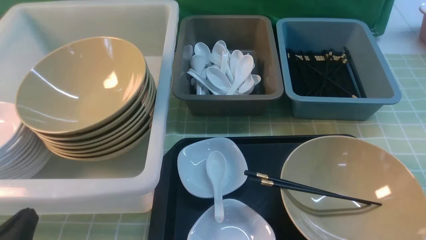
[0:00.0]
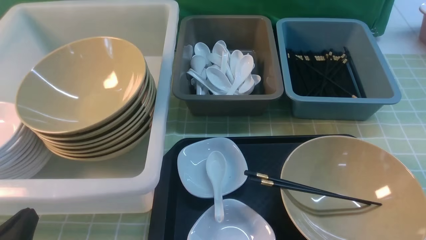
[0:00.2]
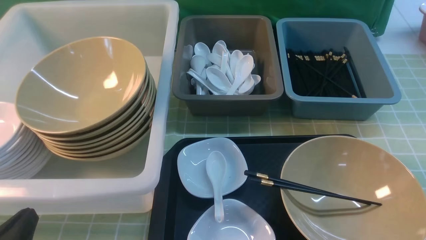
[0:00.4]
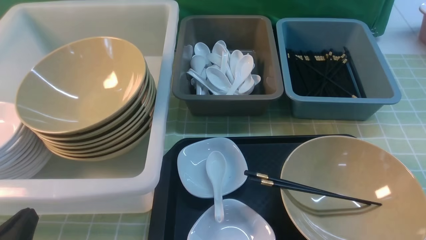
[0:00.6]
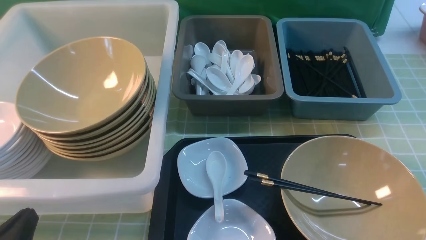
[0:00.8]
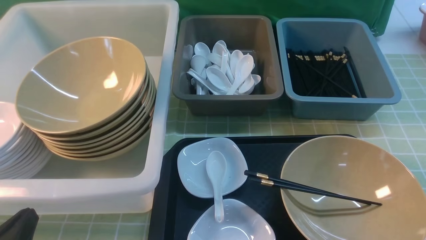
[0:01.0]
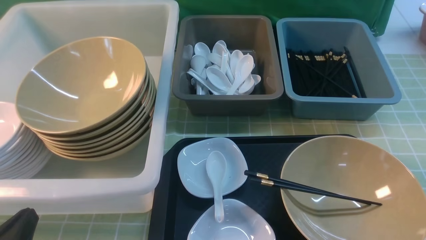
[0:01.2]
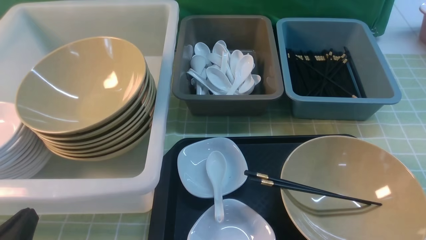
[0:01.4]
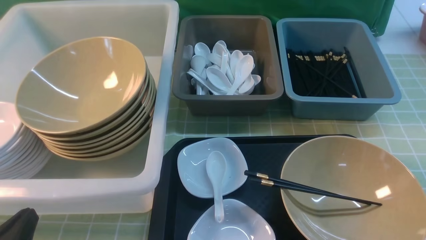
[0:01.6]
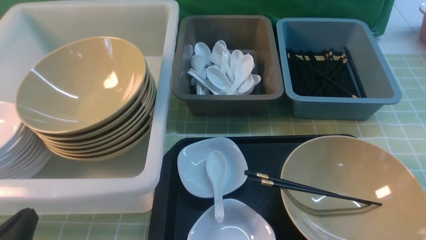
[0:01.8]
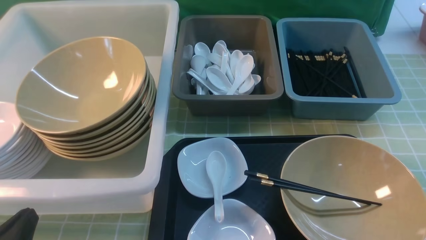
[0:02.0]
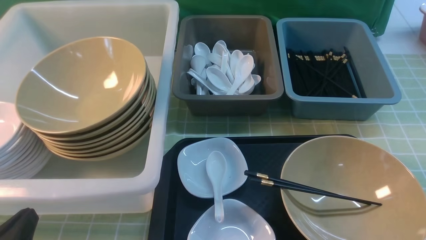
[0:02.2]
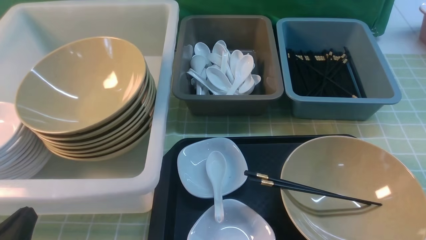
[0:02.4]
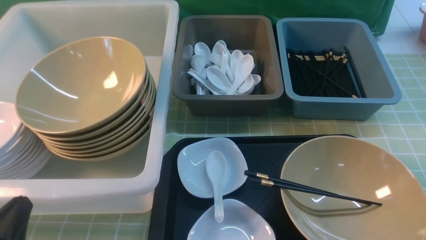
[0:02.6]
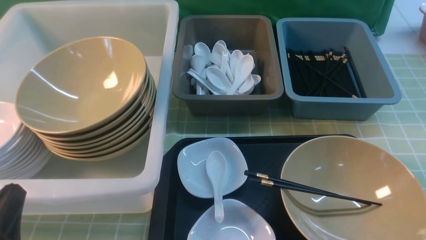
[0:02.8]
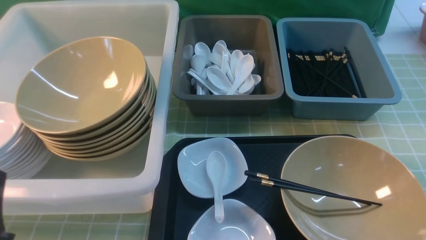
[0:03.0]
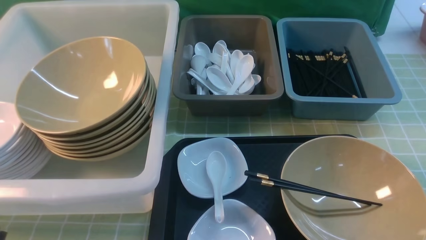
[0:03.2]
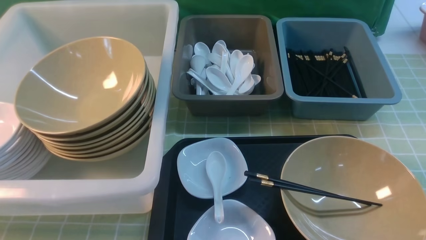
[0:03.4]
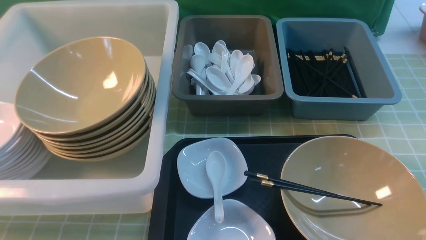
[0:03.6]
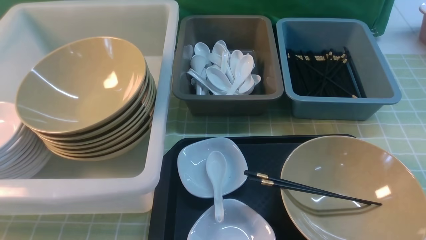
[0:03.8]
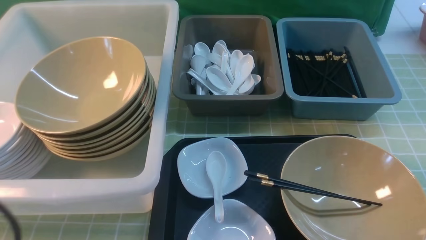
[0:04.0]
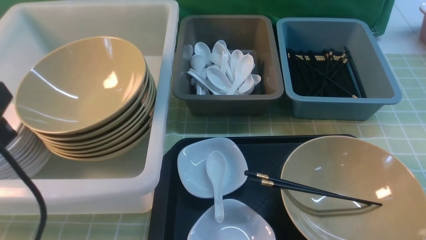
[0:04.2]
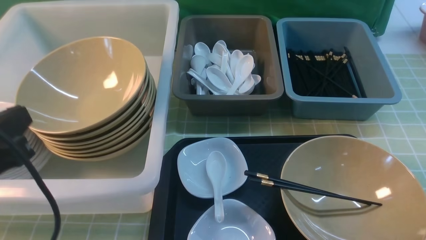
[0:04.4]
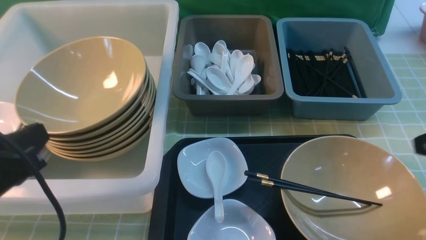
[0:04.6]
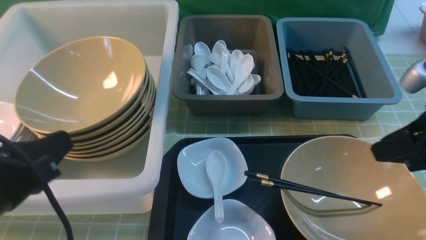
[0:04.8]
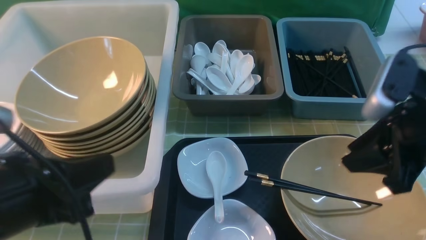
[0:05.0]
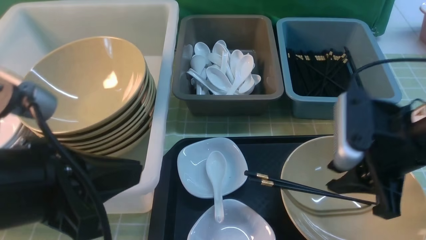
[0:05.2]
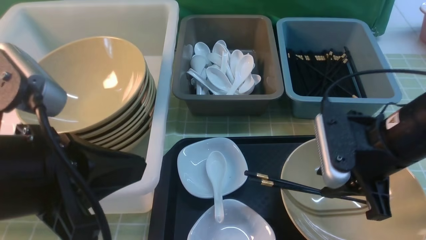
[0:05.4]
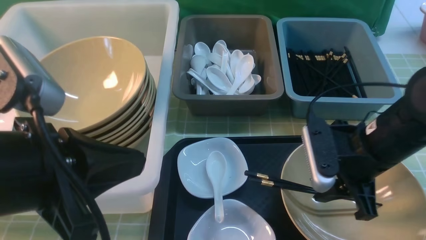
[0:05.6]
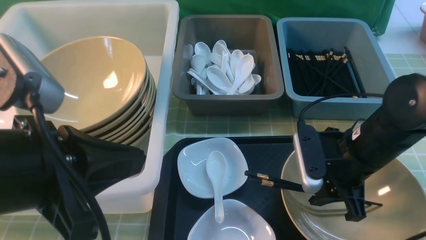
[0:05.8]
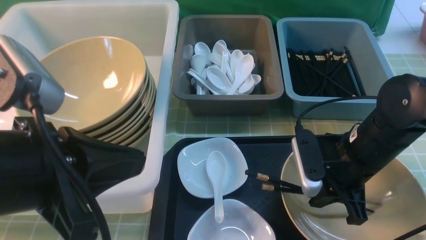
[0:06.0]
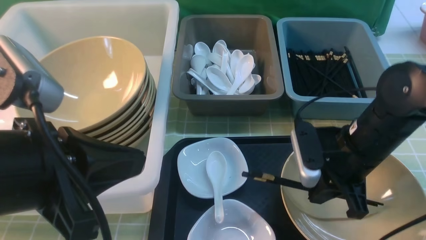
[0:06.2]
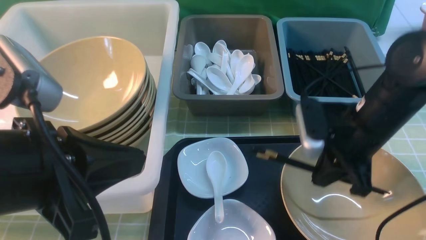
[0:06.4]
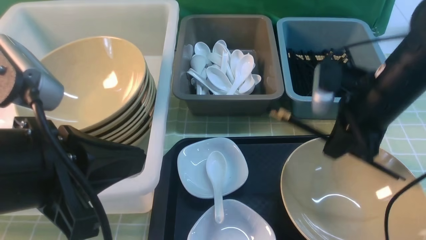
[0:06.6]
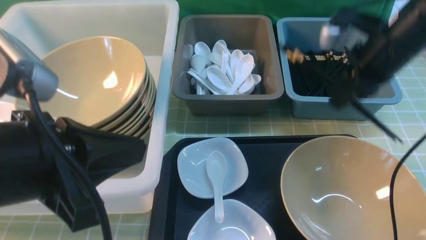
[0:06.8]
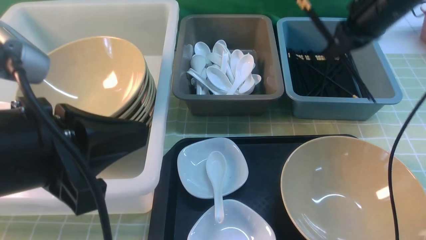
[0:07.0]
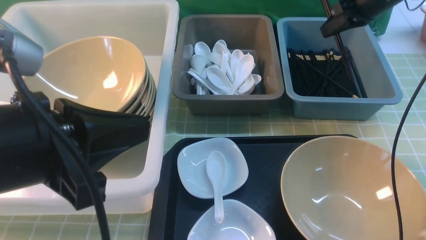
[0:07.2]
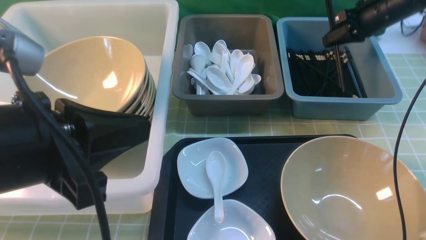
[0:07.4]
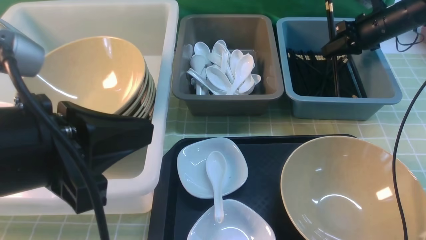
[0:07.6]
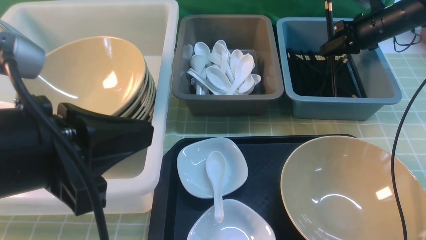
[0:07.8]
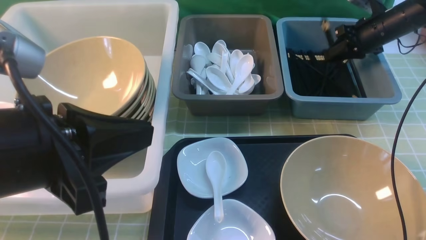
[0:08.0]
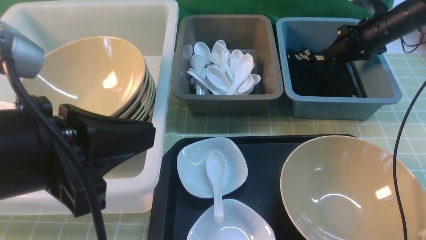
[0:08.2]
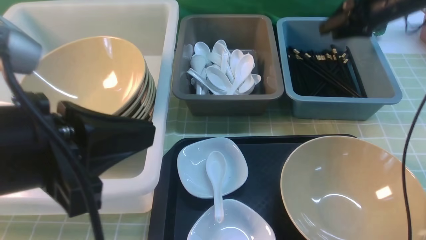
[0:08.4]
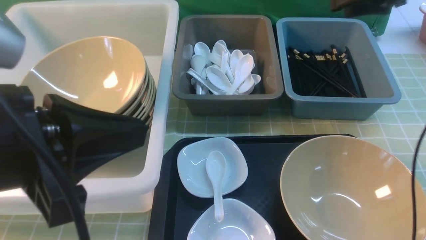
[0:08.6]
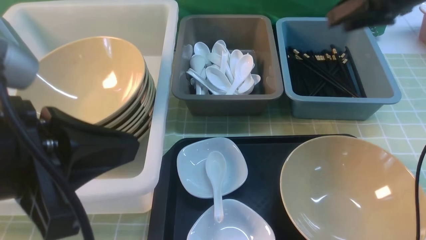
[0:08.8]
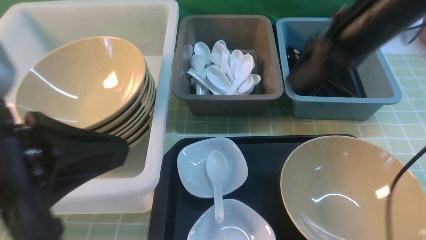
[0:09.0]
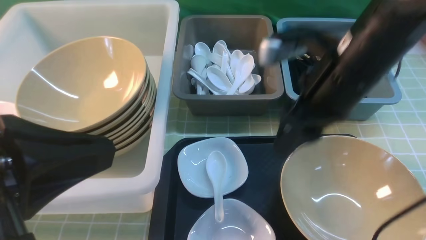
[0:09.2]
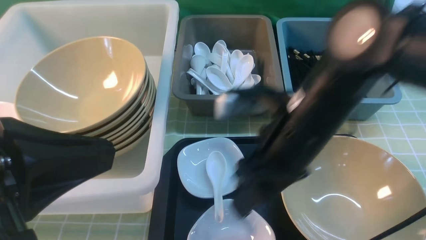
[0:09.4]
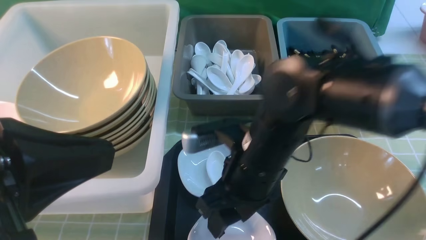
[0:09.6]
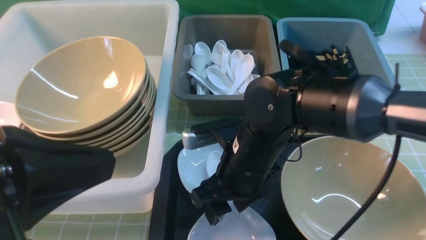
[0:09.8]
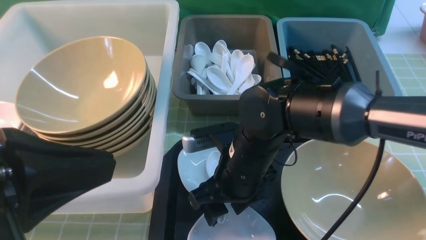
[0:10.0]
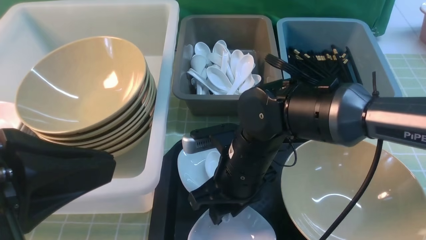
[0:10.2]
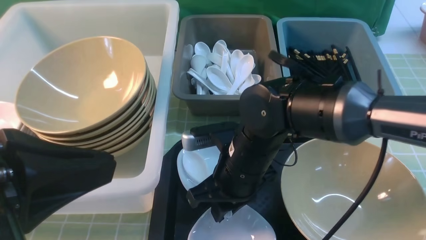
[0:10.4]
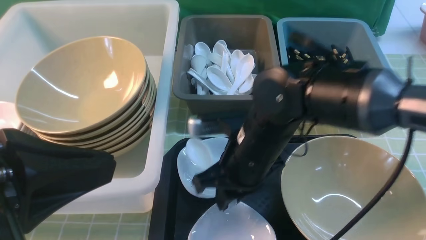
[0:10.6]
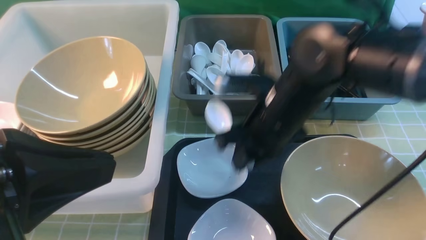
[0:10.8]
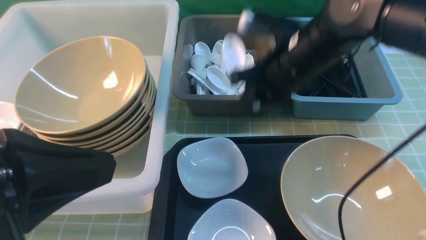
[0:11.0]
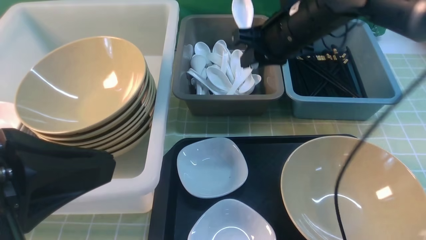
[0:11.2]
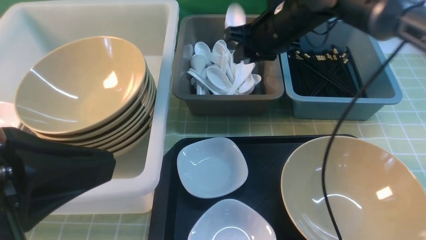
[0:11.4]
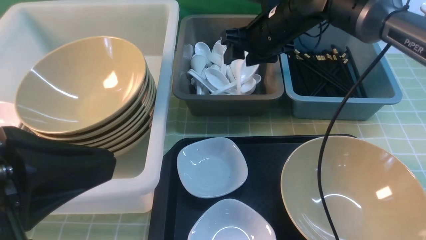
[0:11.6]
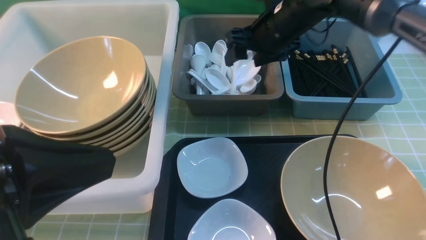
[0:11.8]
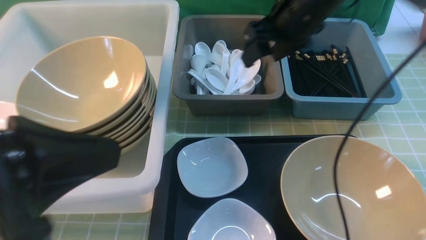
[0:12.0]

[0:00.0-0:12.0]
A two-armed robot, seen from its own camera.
Task of the whole recording: on green table put chopsticks spoon bowls plates into blue grey white boxes.
Step, 0:00.0 to 0:06.4: use the right arm to grab the chopsticks.
Step, 0:06.6 to 0:08.4: use the right arm to put the chopsticks into the small storage box on the right.
Step, 0:08.6 to 0:10.8: use the right arm to grab the soup spoon in the middle.
0:00.0 to 0:01.6: The two grippers keep their place.
0:03.0 to 0:04.4: The left gripper shifts roughly 10 cm upward and forward.
0:04.4 to 0:06.0: The right gripper travels to the left, downward and forward by about 20 cm, while the left gripper heads to the right, covering some 5 cm.
0:06.0 to 0:07.6: The right gripper shifts approximately 30 cm forward and to the right.
0:07.6 to 0:09.0: The right gripper is displaced backward, to the left and upward by roughly 25 cm, and opens.
0:09.0 to 0:10.4: The right gripper heads to the left, downward and backward, covering roughly 20 cm, and closes its fingers.
0:10.4 to 0:12.0: The right gripper travels upward, forward and to the right by approximately 20 cm, and opens up.

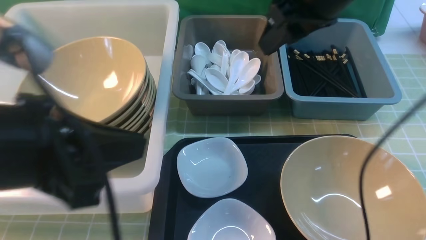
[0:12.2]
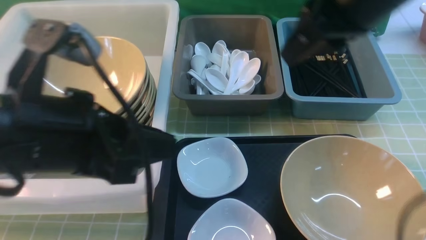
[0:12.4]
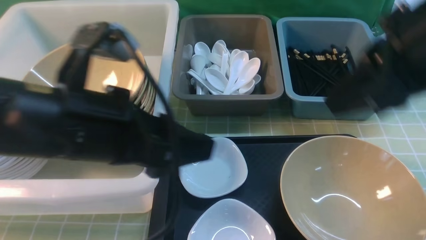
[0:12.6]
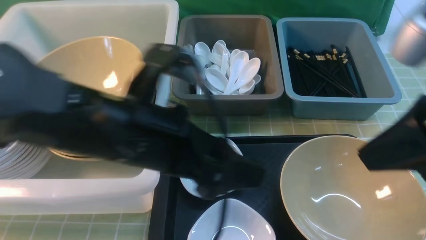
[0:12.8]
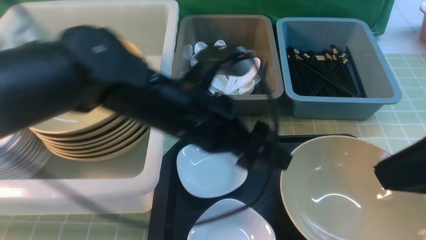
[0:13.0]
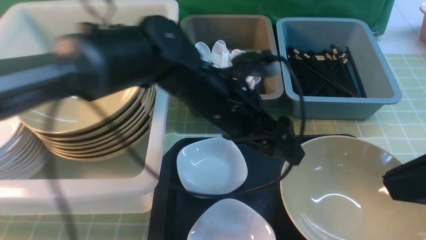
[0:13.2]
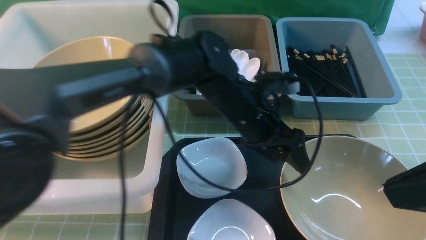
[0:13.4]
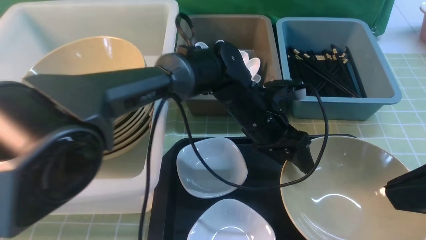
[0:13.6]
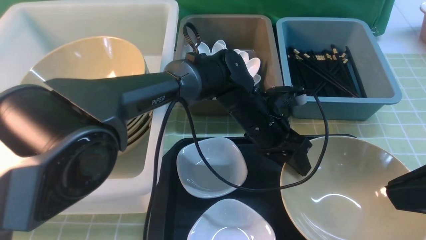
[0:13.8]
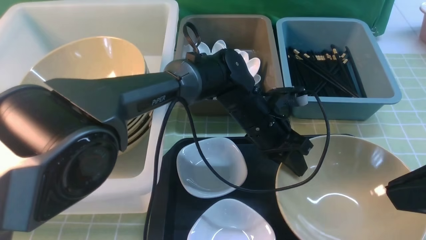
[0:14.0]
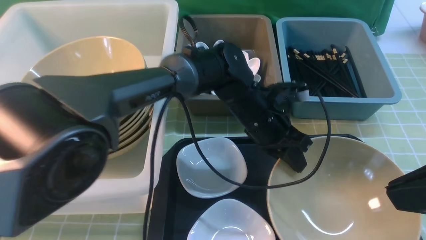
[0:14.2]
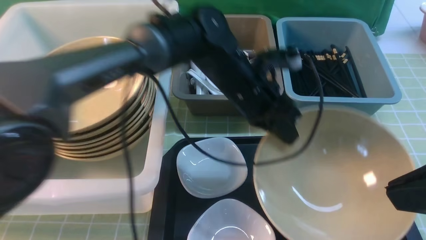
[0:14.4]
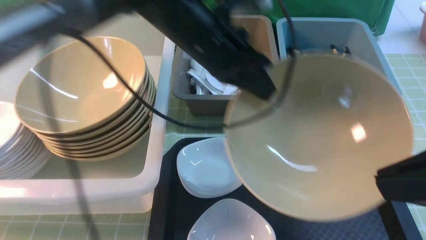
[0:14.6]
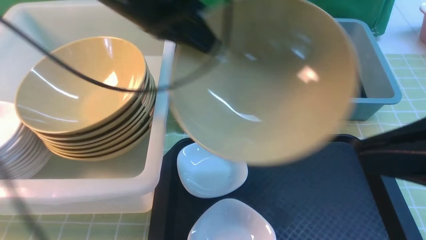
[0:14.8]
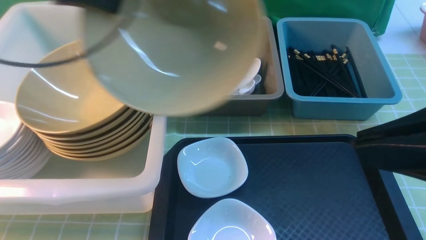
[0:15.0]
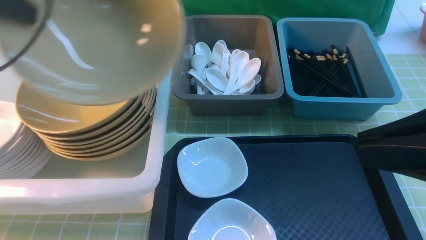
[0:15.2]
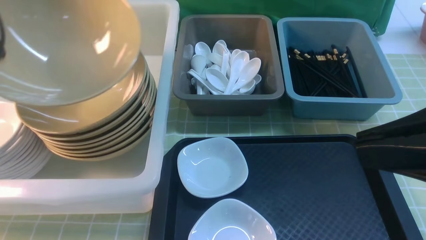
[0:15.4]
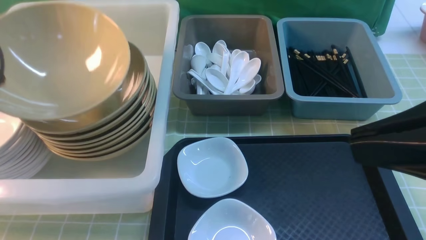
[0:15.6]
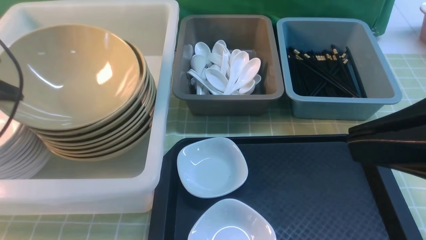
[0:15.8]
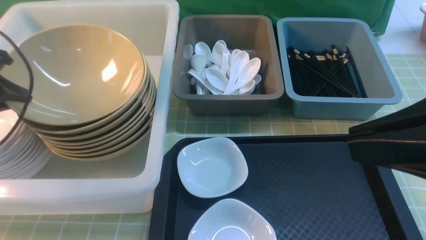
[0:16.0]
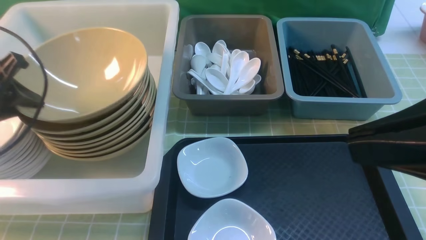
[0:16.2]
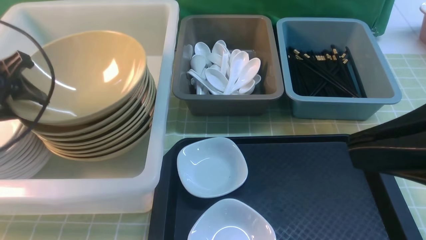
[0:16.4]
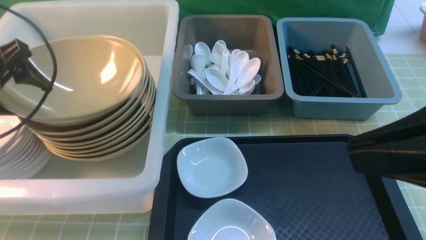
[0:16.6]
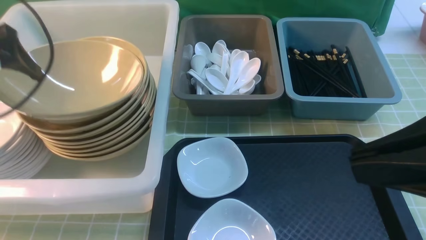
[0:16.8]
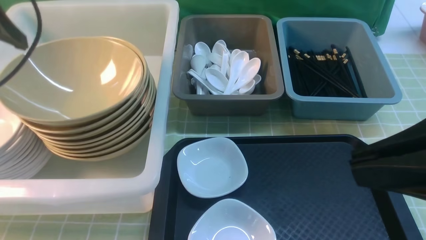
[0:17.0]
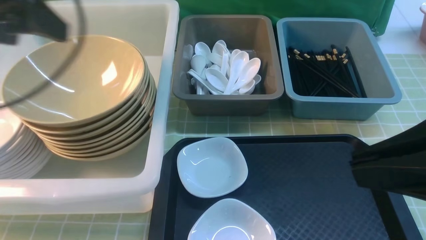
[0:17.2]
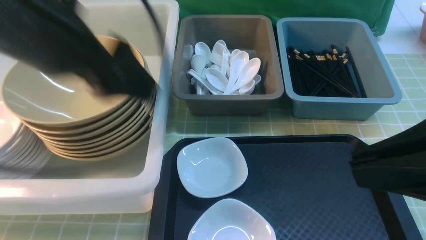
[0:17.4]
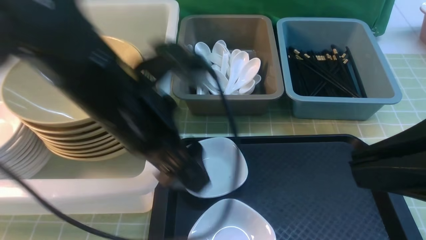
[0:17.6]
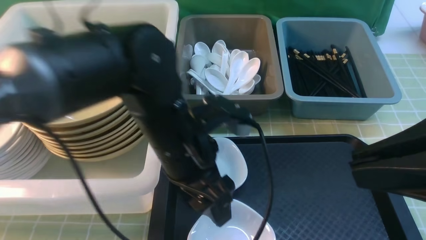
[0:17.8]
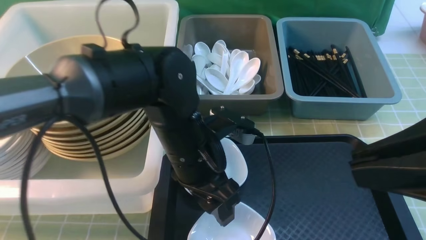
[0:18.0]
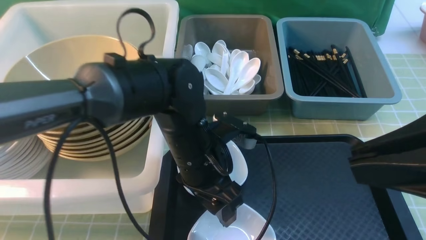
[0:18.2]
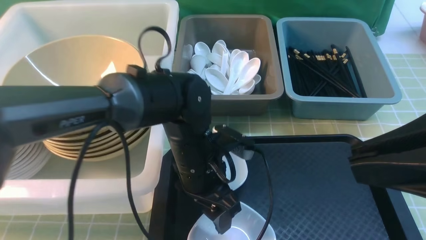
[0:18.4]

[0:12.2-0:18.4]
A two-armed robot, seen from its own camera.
Task of the whole recording: on green table put chopsticks spoon bowls plates into blue grey white boxes.
Step, 0:12.8 to 0:14.6: use the left arm to grab the yellow noodle bowl on the left.
Step, 0:14.8 to 0:17.0: use the left arm to put the noodle bowl into the large storage box on the left.
0:12.2 to 0:13.8: The right gripper goes some 20 cm backward, and closes. Meanwhile the left gripper is displaced to the right, forward and downward by about 35 cm, and opens, then closes again.
0:13.8 to 0:15.4: The left gripper moves to the left and upward, approximately 50 cm.
0:15.4 to 0:16.8: The left gripper reaches roughly 5 cm downward, then returns, and opens its fingers.
0:16.8 to 0:18.4: The left gripper heads to the right and downward, covering some 35 cm.
